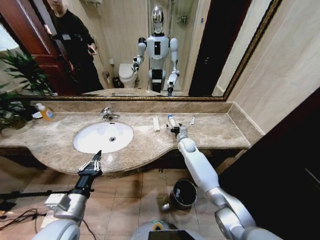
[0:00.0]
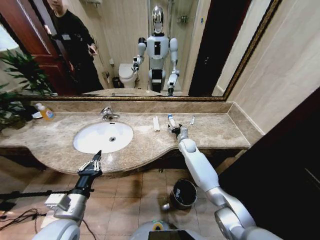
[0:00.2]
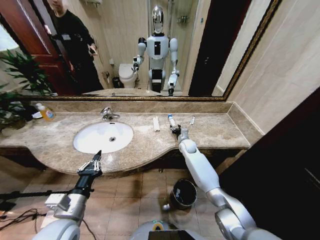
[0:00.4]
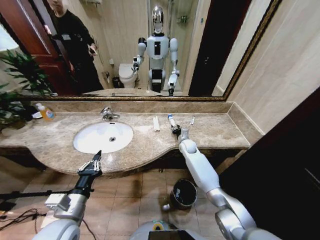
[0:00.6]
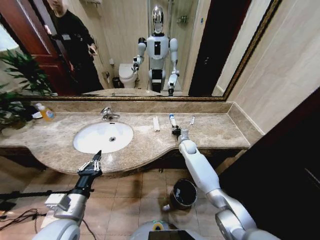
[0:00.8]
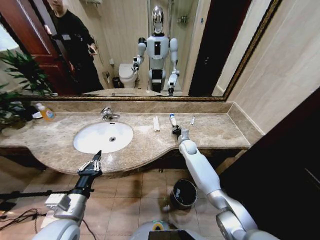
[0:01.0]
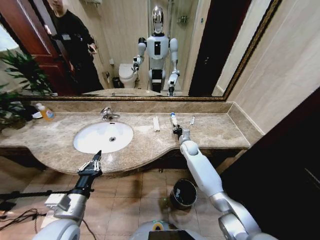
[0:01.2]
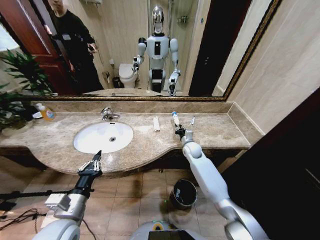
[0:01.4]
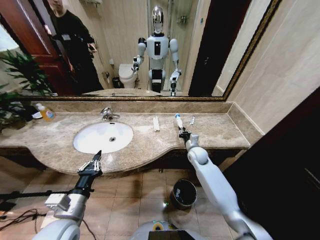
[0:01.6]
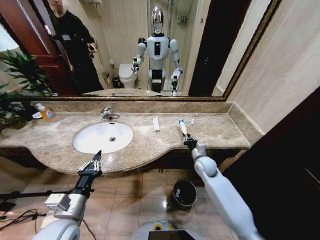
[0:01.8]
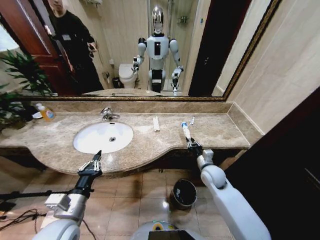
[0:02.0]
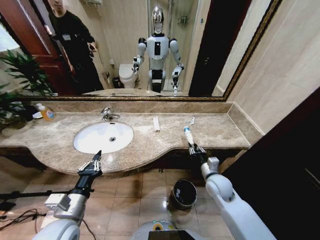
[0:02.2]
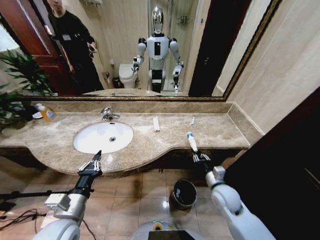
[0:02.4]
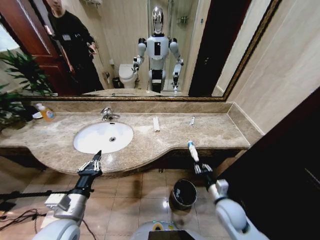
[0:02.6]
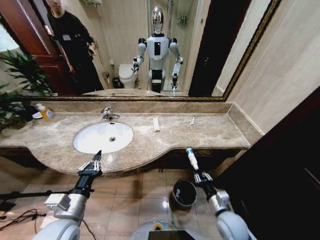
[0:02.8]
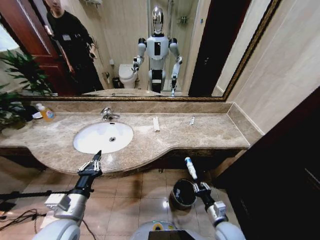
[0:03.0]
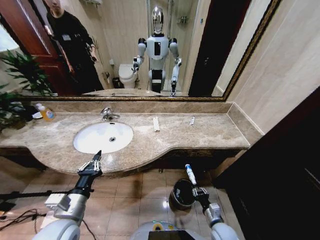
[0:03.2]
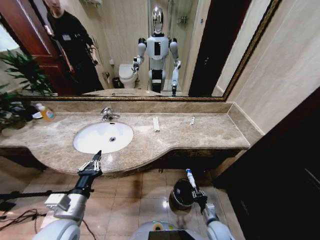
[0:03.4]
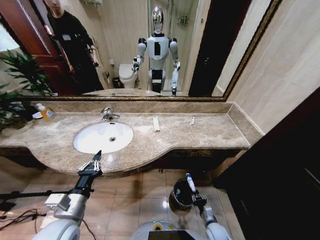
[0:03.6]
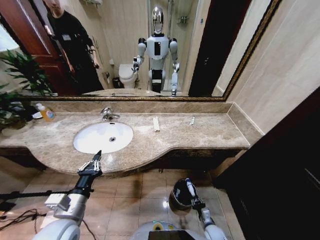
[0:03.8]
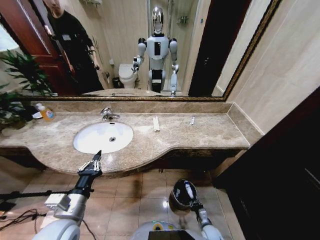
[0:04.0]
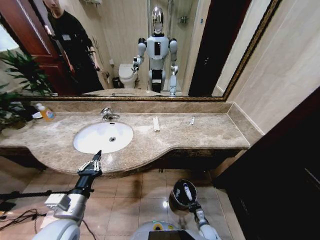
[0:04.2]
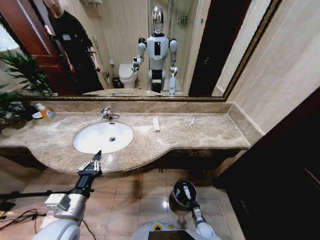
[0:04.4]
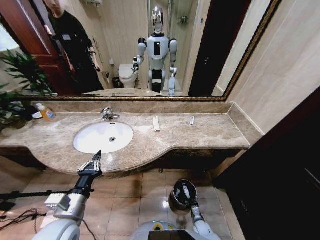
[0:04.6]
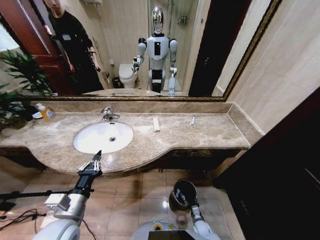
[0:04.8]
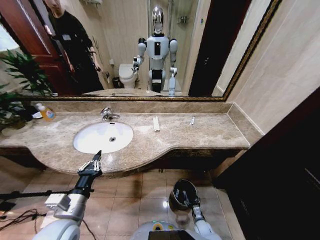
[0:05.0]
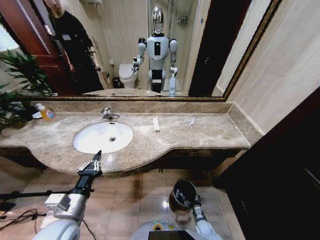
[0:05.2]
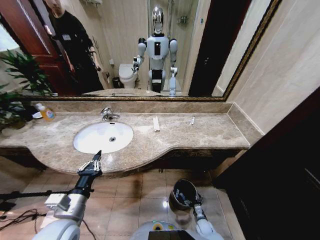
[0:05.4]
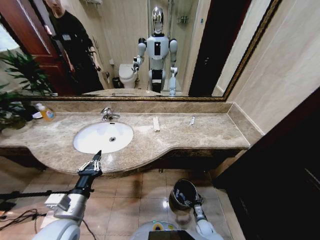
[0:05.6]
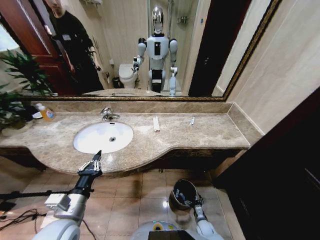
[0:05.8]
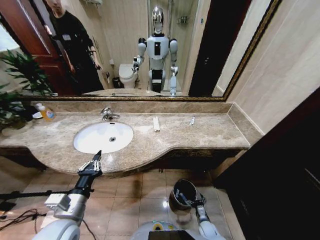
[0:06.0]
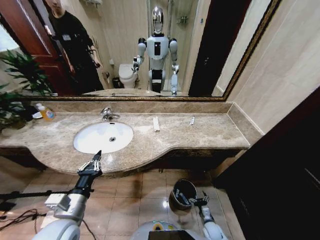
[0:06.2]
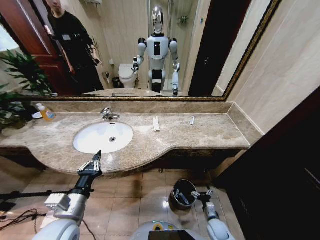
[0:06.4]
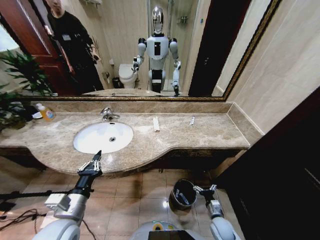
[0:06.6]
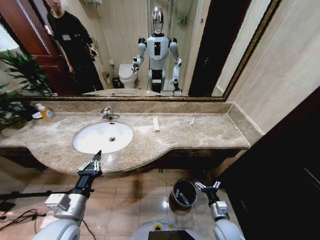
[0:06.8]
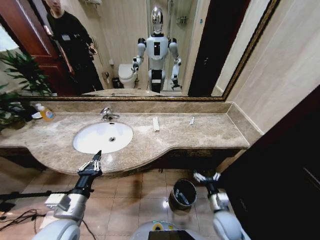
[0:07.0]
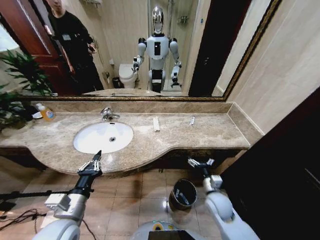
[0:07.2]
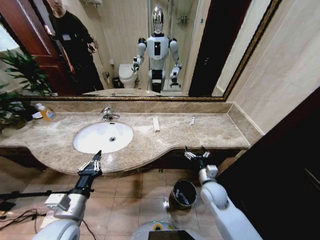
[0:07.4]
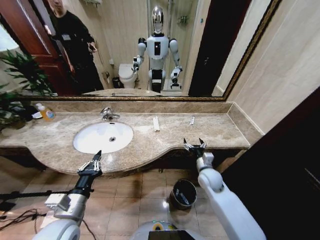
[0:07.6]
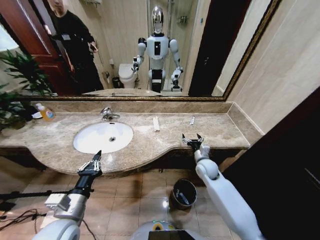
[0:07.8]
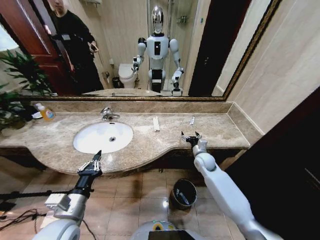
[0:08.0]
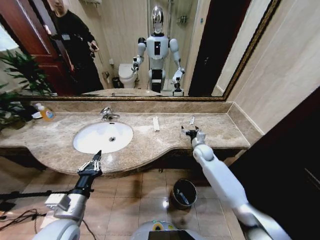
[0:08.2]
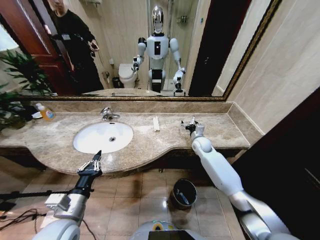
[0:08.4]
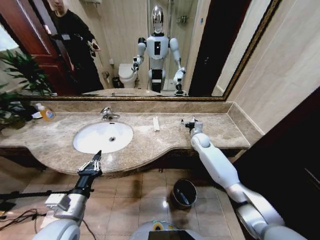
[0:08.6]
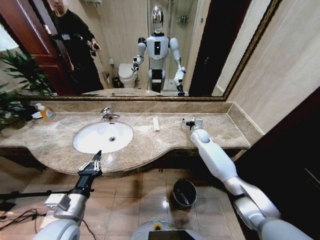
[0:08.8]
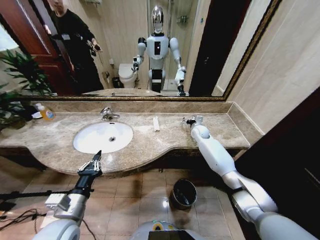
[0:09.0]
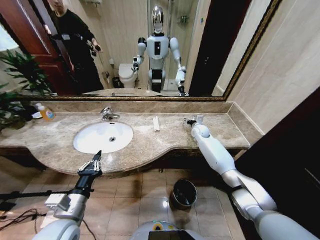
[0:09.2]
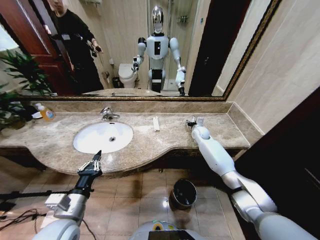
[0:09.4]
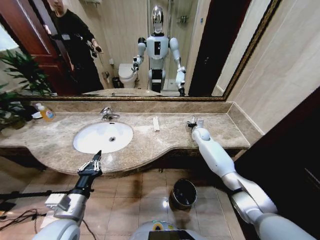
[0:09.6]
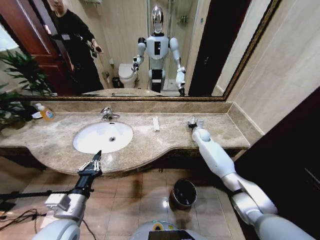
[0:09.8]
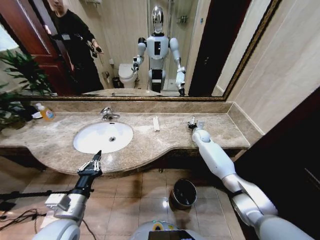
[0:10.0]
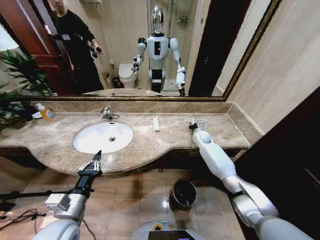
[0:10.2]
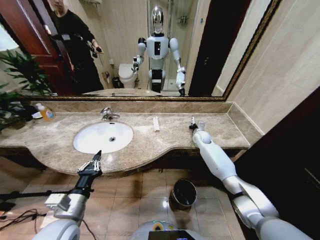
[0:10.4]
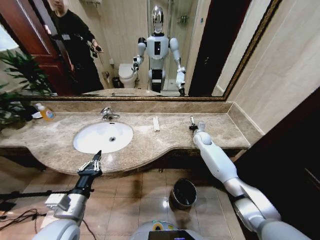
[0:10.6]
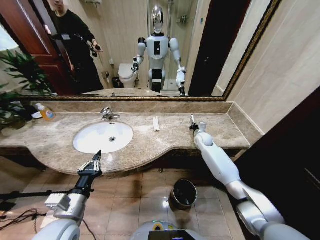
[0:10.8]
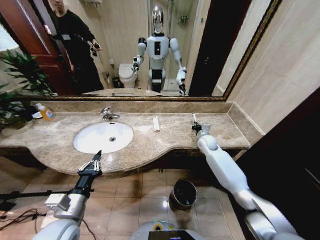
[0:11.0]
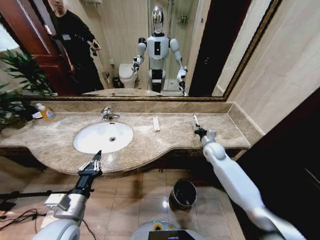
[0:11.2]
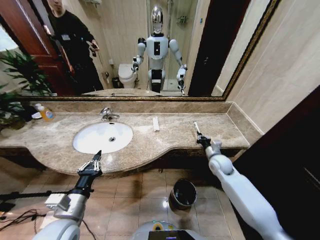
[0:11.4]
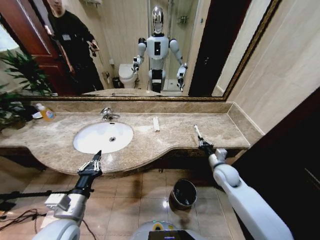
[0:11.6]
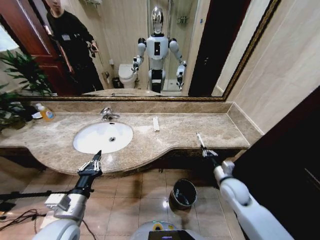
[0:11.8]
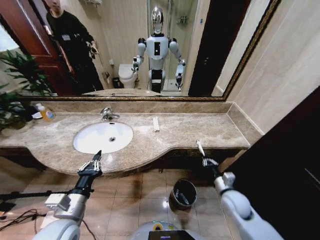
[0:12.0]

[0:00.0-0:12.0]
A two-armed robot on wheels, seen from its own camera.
Task of the whole recording: Pick up the trash from the sink and place it in the trash bin.
0:00.0 to 0:01.6: The right gripper shifts about 10 cm backward, and closes.
0:01.6 to 0:03.0: The right gripper travels backward by roughly 30 cm.
0:03.0 to 0:04.4: The right gripper heads downward, covering approximately 25 cm.
0:04.4 to 0:06.0: The right gripper opens up.
0:06.0 to 0:07.6: The right gripper goes some 35 cm upward and forward.
0:07.6 to 0:09.0: The right gripper travels forward by roughly 25 cm.
0:09.0 to 0:10.4: The right gripper closes its fingers.
0:10.4 to 0:12.0: The right gripper shifts about 30 cm backward.

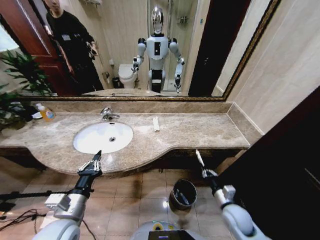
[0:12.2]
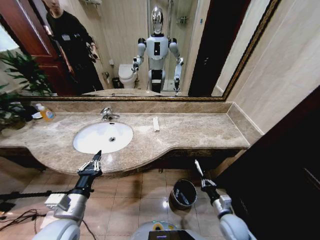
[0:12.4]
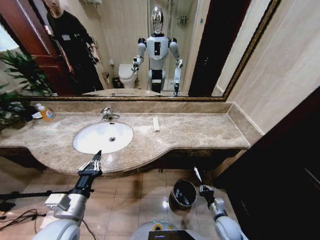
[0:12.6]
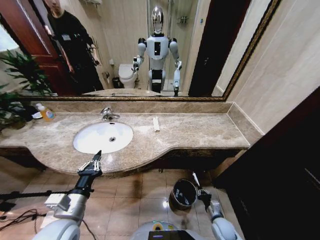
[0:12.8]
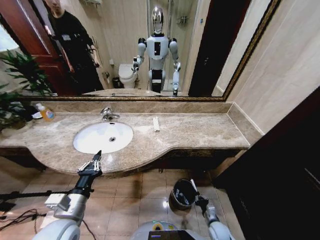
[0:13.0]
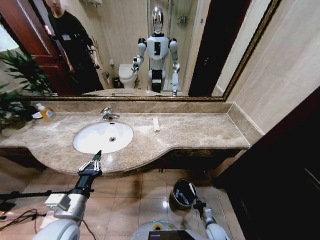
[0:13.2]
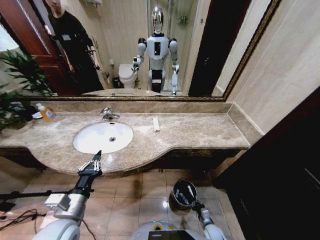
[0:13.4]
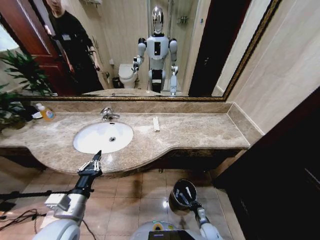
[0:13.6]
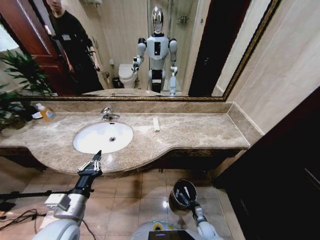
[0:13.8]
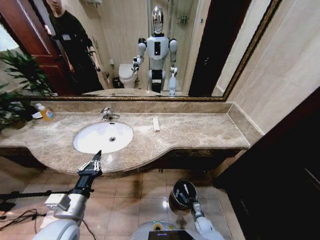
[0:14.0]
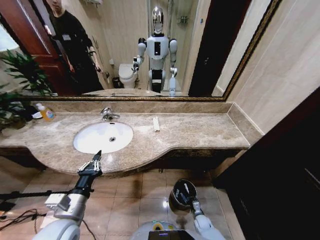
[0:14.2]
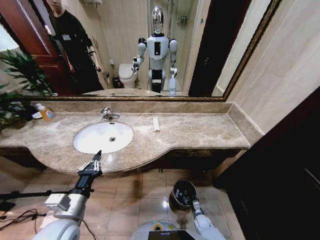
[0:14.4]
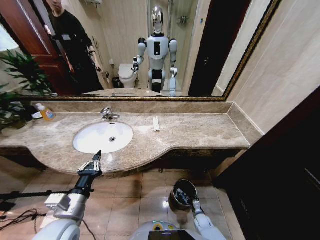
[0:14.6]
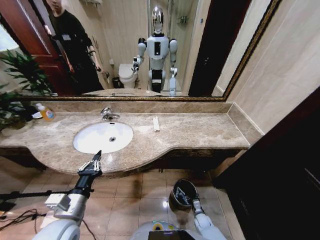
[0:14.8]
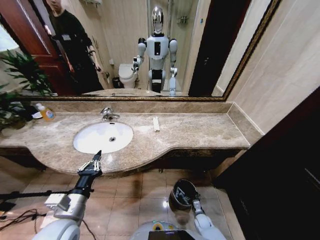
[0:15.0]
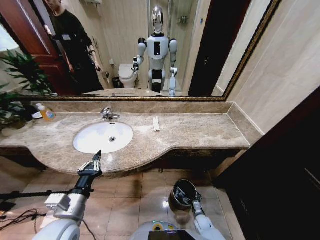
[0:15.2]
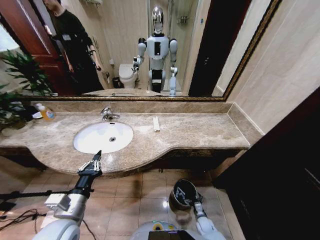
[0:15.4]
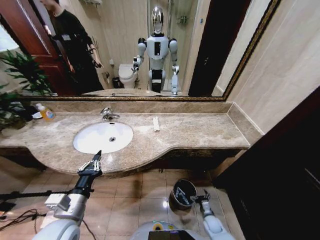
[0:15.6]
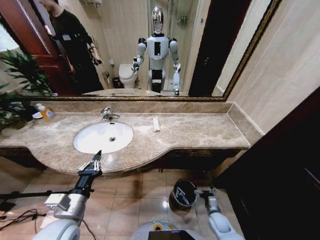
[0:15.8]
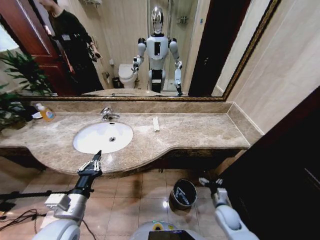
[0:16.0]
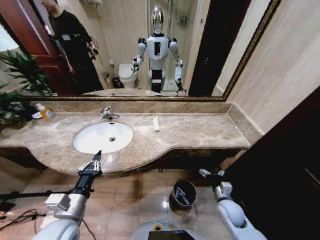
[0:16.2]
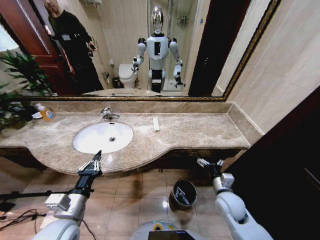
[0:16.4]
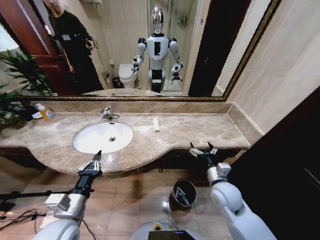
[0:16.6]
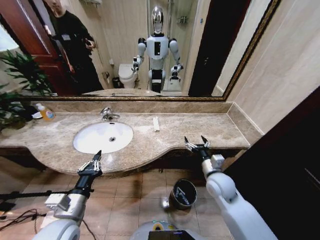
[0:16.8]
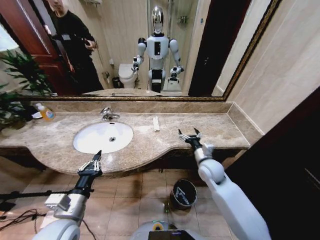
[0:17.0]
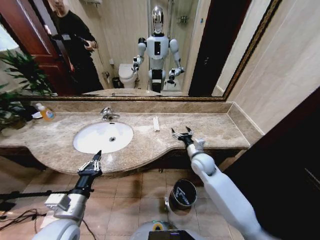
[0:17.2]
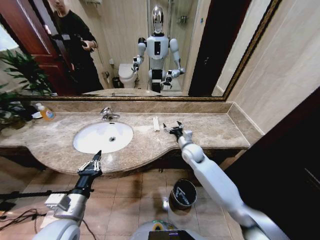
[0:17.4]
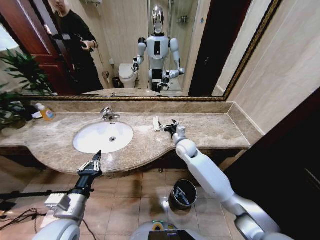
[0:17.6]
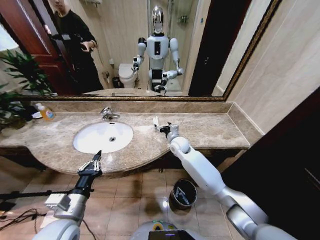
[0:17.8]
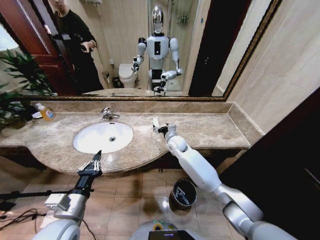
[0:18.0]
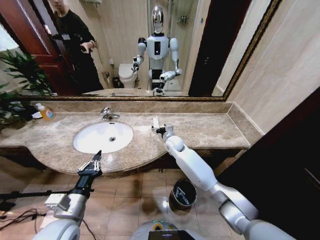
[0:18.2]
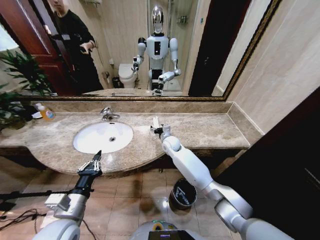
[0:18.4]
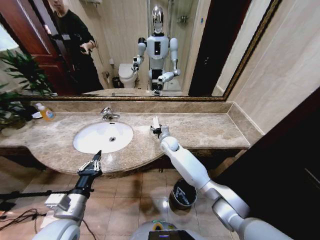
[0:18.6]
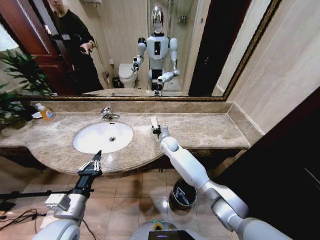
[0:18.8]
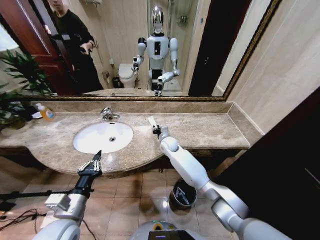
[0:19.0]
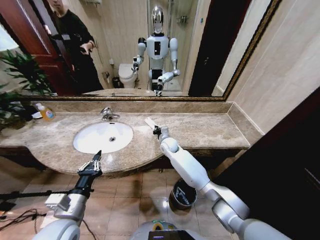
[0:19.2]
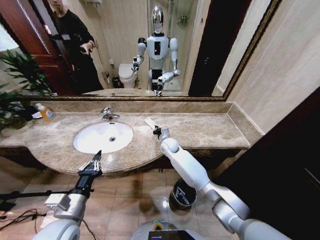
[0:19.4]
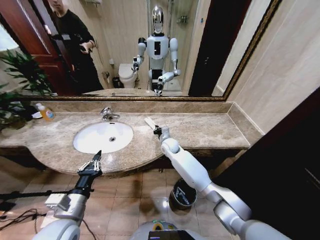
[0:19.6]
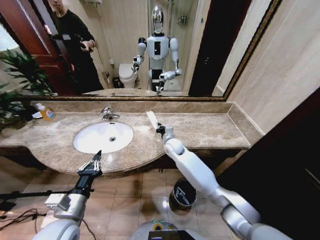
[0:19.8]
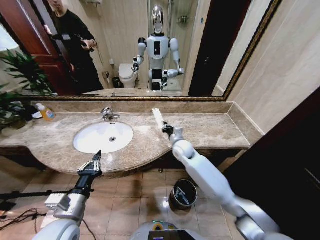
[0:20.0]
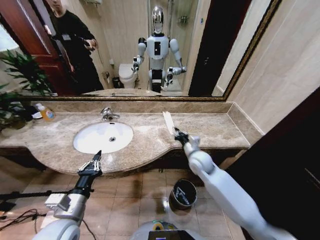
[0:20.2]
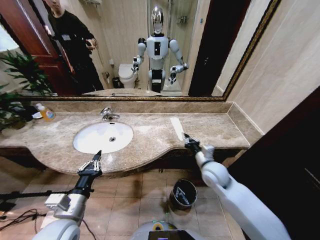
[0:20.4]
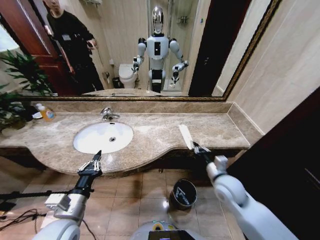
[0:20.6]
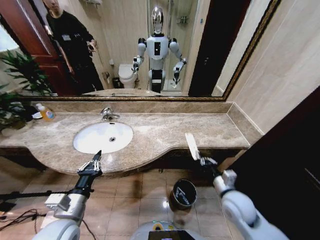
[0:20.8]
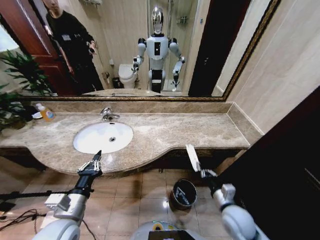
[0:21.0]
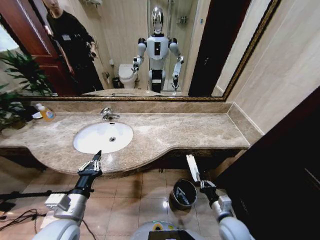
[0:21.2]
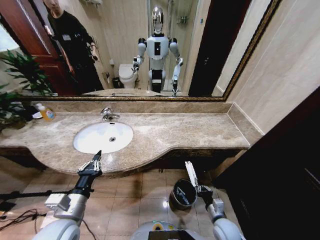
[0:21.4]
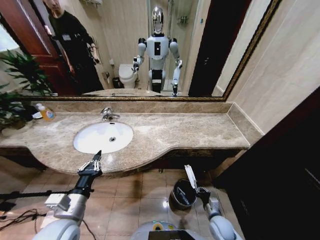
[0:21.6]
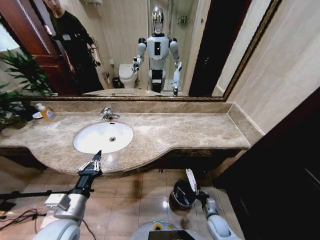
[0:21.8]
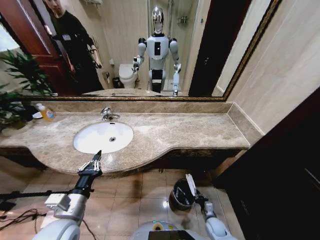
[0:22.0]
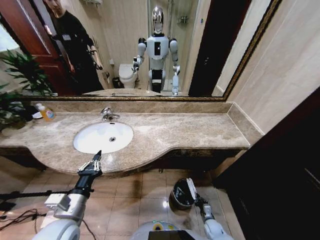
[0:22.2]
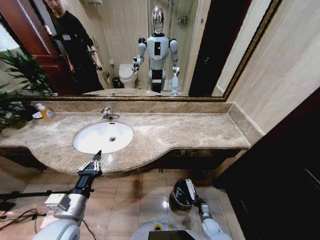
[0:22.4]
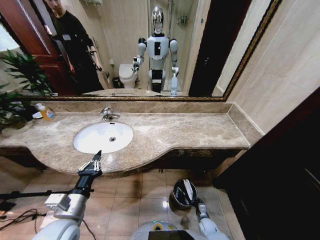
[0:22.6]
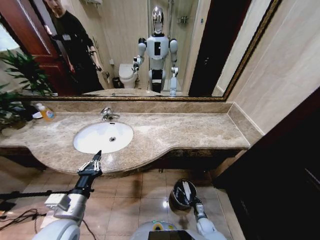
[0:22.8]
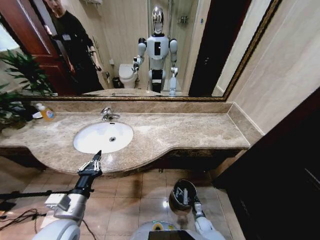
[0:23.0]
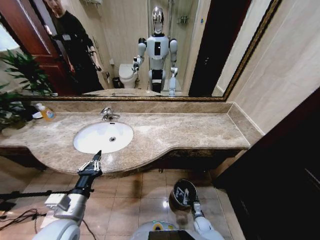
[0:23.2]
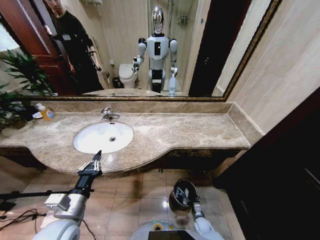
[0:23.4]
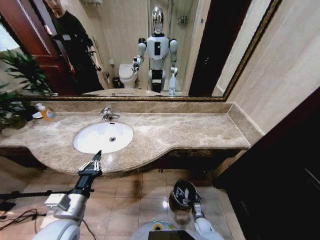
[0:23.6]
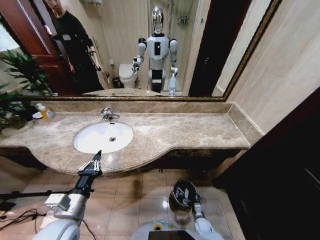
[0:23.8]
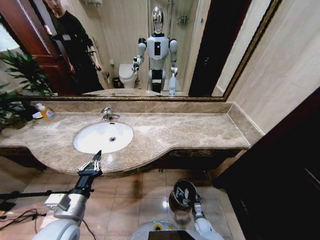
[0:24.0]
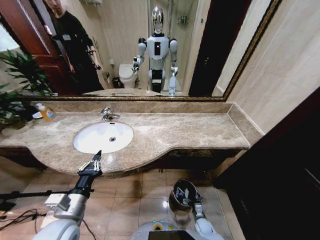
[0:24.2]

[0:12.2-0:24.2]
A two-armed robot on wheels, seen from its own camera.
Task of the whole recording: Pick up the trash from the sink and place it in the trash bin.
0:12.2 to 0:13.8: The right gripper heads downward, covering roughly 25 cm.
0:13.8 to 0:15.2: The right gripper opens its fingers.
0:15.2 to 0:16.6: The right gripper shifts about 35 cm upward.
0:16.6 to 0:18.2: The right gripper moves forward and to the left, approximately 30 cm.
0:18.2 to 0:19.8: The right gripper closes its fingers.
0:19.8 to 0:21.2: The right gripper is displaced backward and to the right by about 40 cm.
0:21.2 to 0:22.6: The right gripper goes some 25 cm downward.
0:22.6 to 0:24.2: The right gripper opens up.
